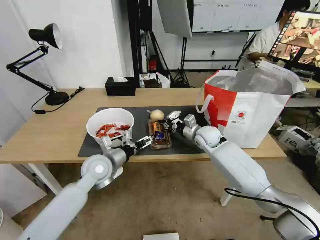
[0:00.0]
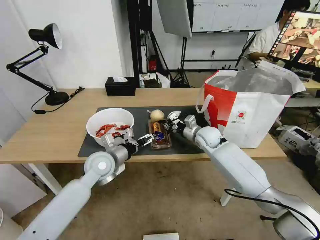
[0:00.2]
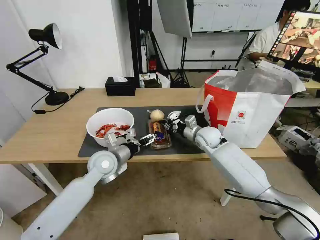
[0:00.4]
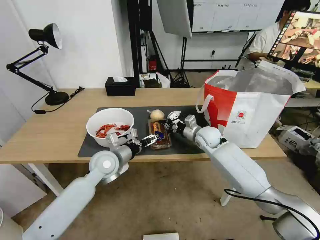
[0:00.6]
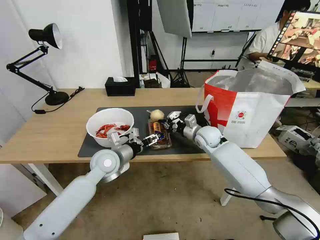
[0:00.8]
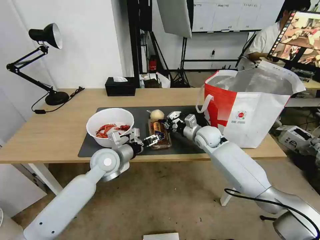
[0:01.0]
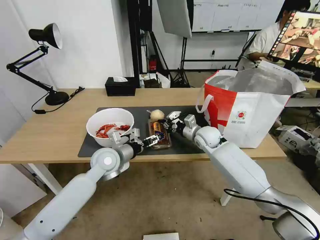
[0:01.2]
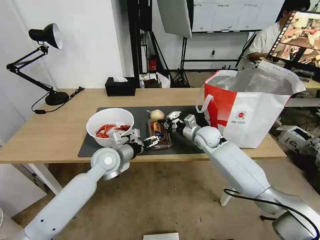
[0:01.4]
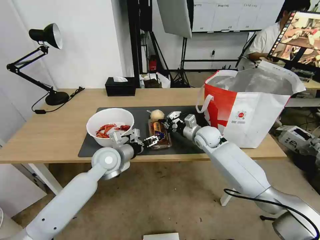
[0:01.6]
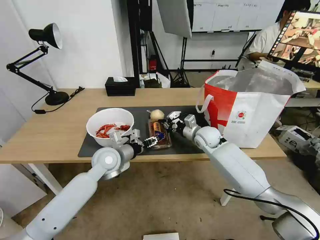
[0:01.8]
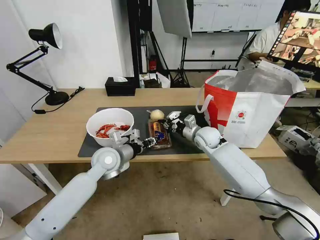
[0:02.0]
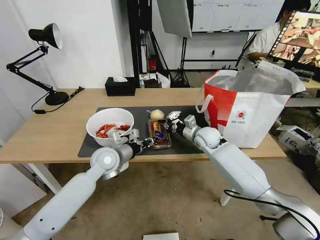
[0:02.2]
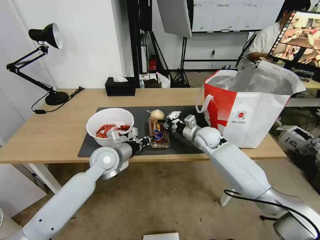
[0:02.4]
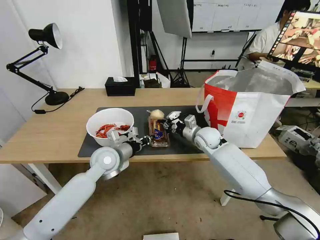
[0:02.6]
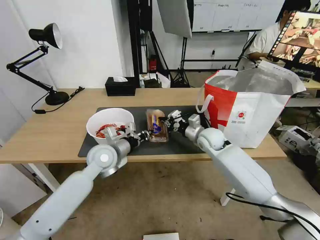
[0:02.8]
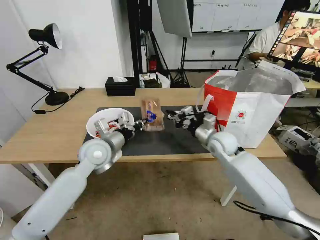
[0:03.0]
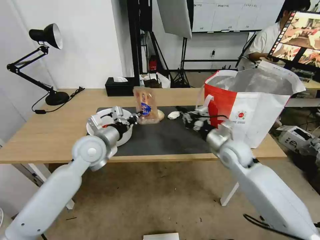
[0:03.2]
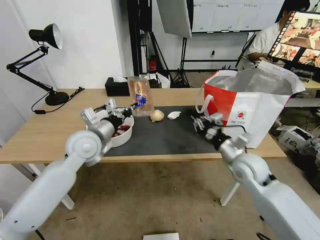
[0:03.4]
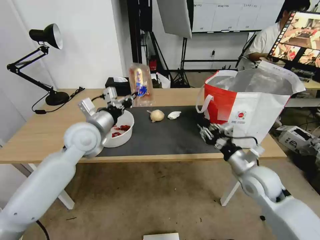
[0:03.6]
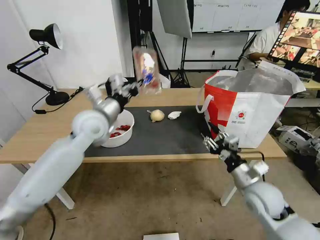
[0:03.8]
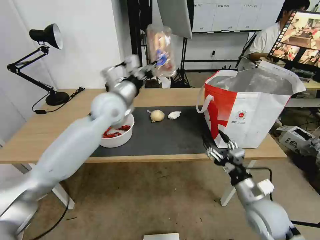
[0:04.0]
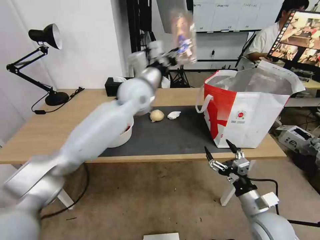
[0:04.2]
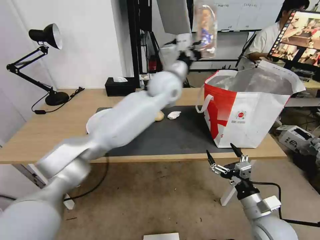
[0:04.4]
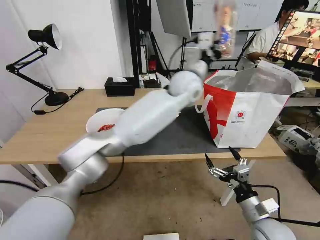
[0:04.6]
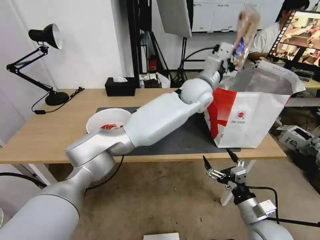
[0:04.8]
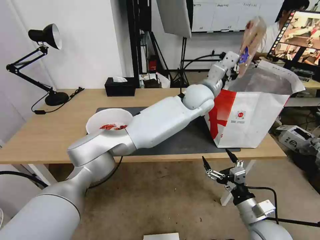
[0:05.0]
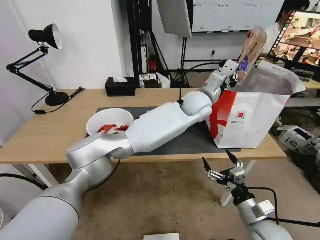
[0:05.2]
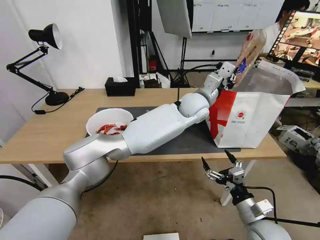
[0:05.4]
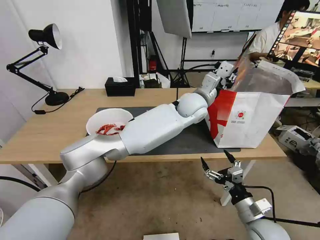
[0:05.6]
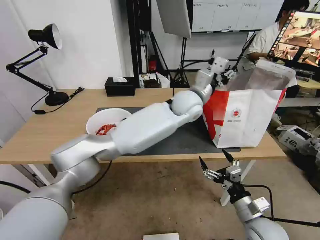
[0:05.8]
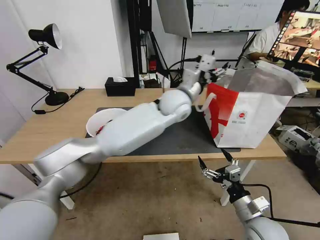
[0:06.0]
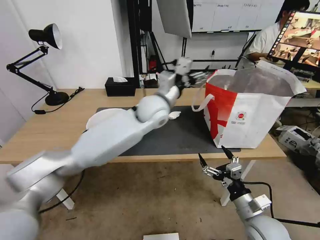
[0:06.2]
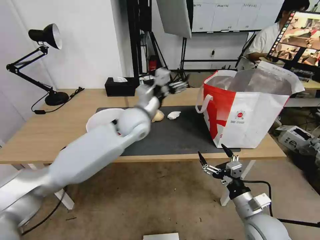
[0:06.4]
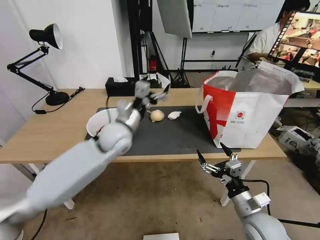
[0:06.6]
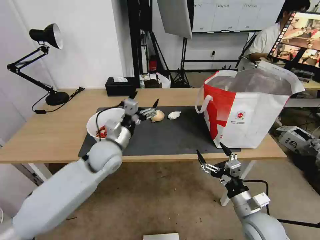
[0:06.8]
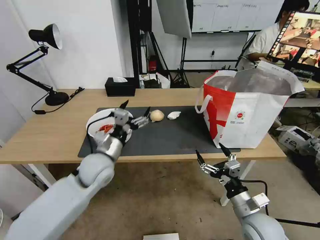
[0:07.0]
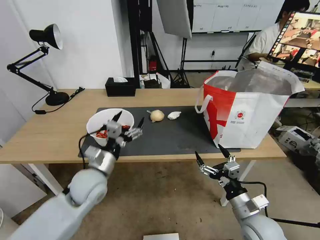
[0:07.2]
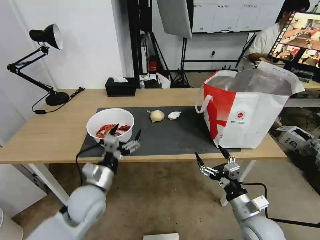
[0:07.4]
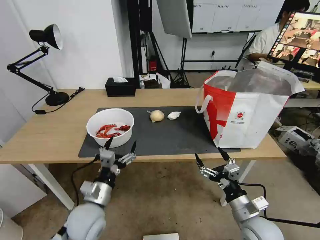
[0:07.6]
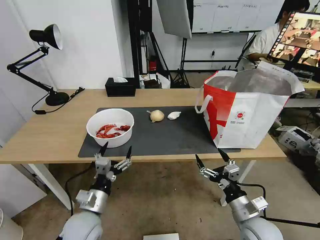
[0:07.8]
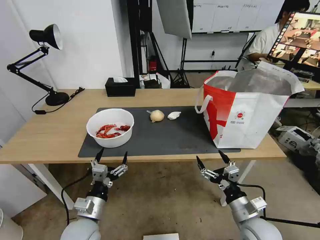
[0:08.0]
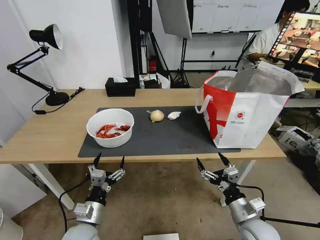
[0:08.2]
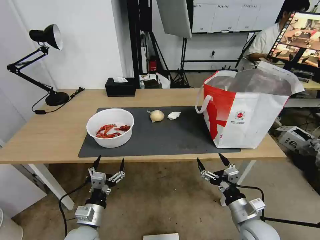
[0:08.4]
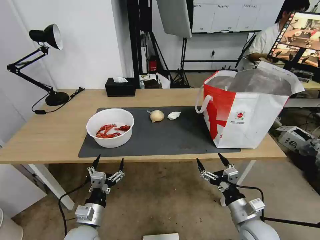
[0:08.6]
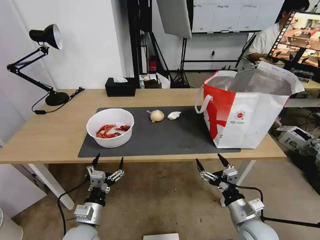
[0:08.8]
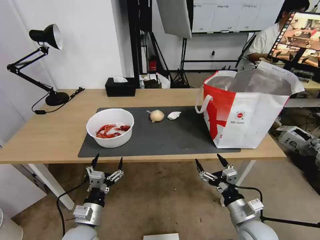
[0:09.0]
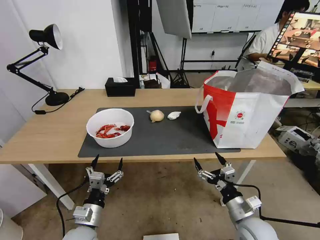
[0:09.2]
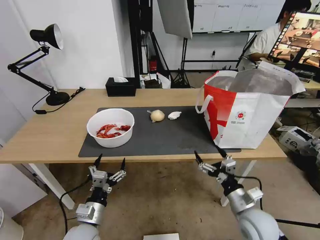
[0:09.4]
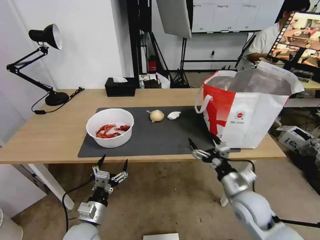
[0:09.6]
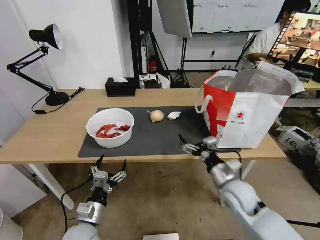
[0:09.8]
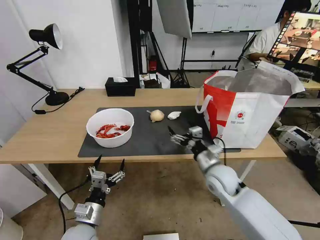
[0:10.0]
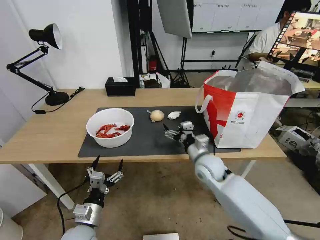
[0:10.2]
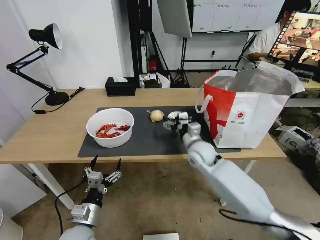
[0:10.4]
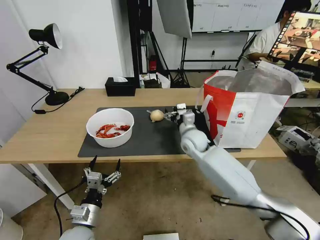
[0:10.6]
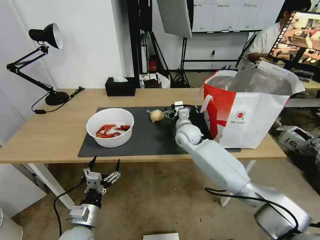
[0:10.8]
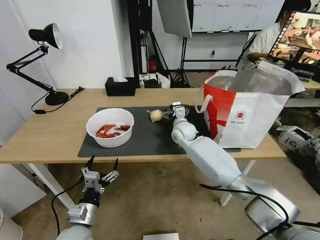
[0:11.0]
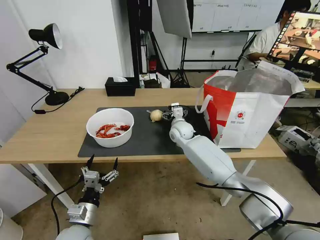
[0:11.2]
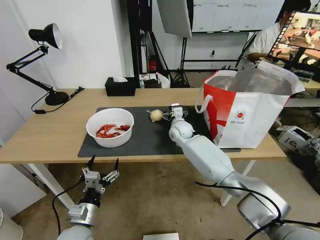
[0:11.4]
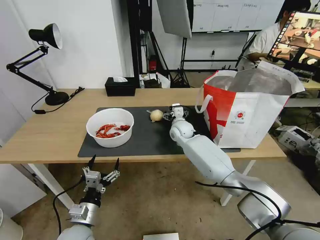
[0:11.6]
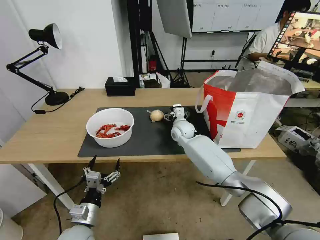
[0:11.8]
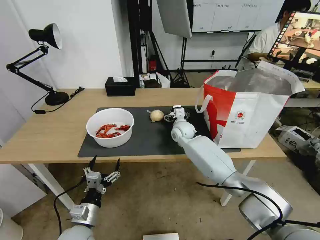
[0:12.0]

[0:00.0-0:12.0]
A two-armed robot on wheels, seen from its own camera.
Task of the whole recording: Pick up the trash from the table and place it into the takeout bag.
0:00.0 to 0:01.6: The grippers stay close to where they were, moving slightly.
0:01.6 to 0:03.0: The left gripper shifts by about 5 cm, and closes up, while the right gripper ends up roughly 5 cm from where it was.
0:03.0 to 0:04.4: The right gripper travels backward by approximately 25 cm, and opens. Meanwhile the left gripper moves to the right, upward and forward, some 30 cm.
0:04.4 to 0:06.0: The left gripper reaches some 10 cm to the right, then returns, and opens.
0:06.0 to 0:07.6: The left gripper goes about 40 cm backward, to the left and downward.
0:07.6 to 0:09.0: The left gripper heads downward, covering some 5 cm.
0:09.0 to 0:10.4: The right gripper is displaced forward and to the left by approximately 25 cm.
0:10.4 to 0:12.0: The right gripper is displaced forward by approximately 15 cm.

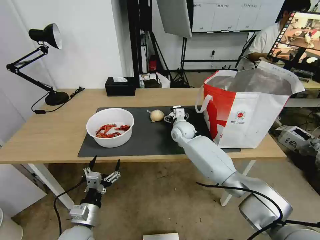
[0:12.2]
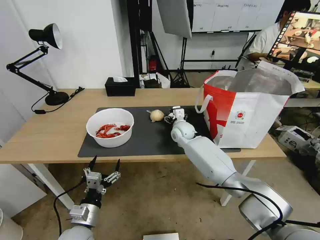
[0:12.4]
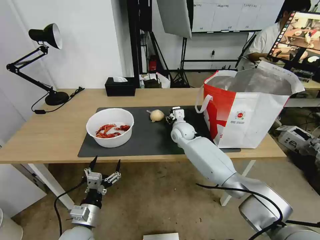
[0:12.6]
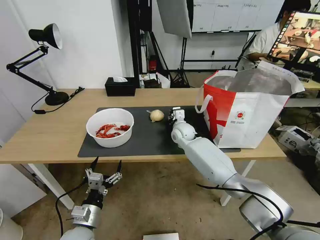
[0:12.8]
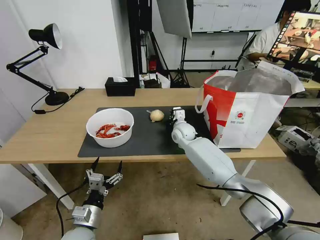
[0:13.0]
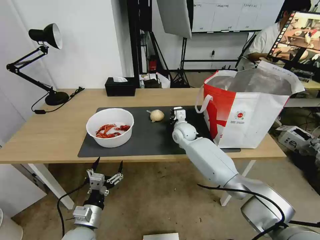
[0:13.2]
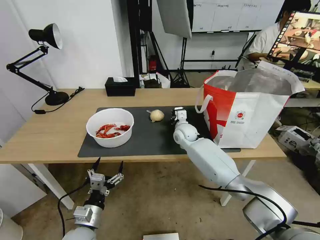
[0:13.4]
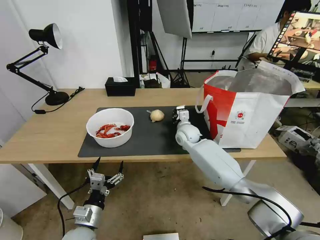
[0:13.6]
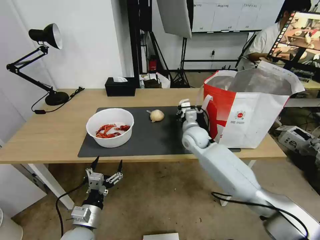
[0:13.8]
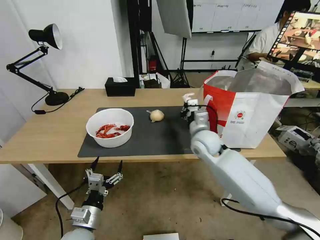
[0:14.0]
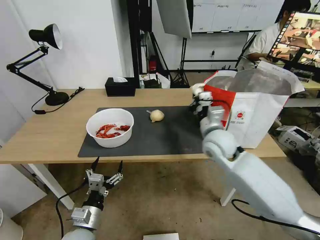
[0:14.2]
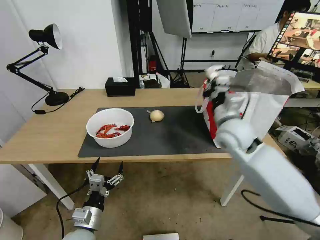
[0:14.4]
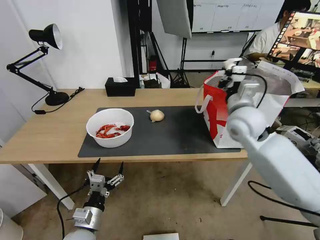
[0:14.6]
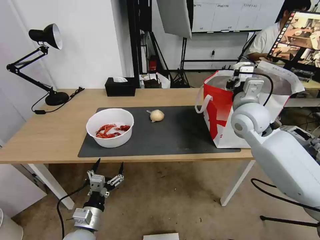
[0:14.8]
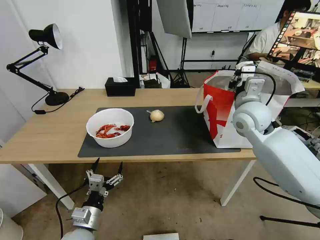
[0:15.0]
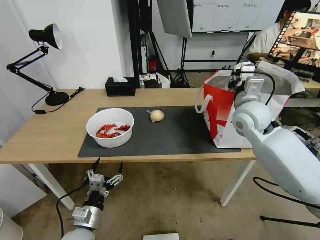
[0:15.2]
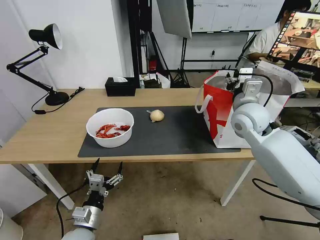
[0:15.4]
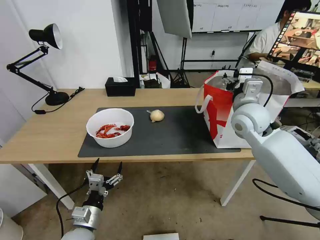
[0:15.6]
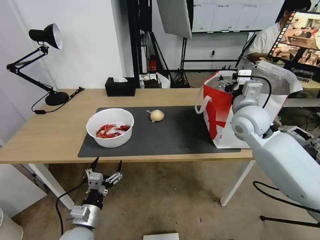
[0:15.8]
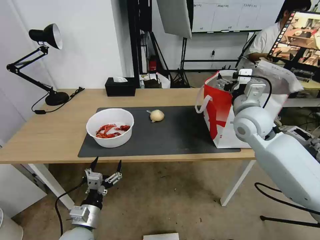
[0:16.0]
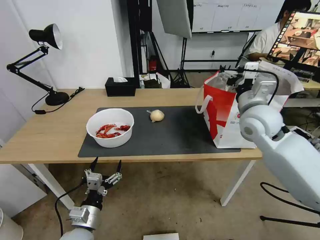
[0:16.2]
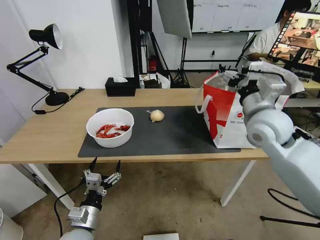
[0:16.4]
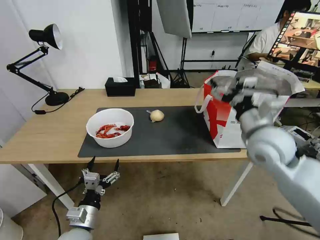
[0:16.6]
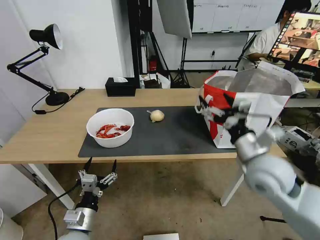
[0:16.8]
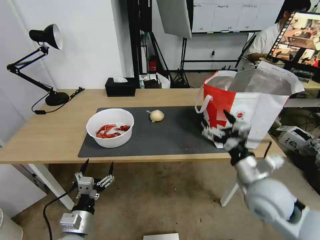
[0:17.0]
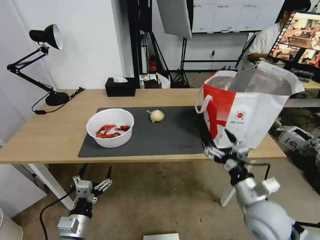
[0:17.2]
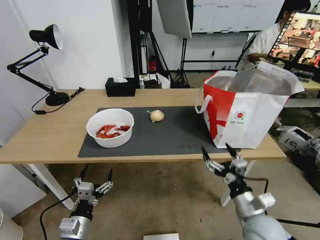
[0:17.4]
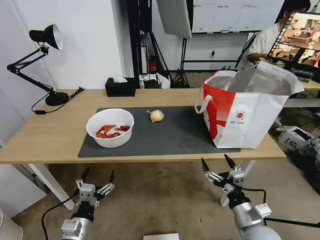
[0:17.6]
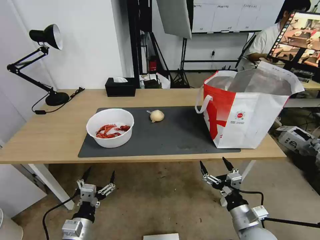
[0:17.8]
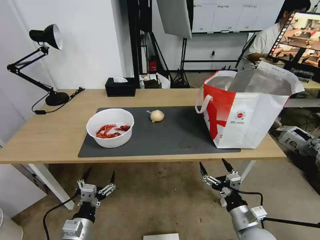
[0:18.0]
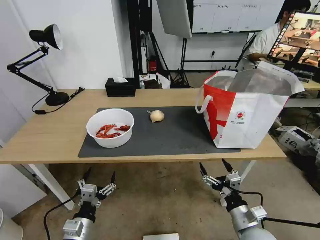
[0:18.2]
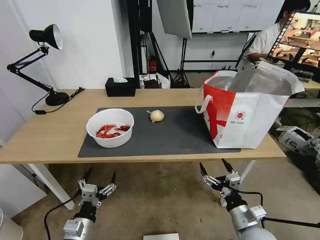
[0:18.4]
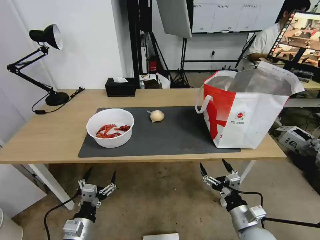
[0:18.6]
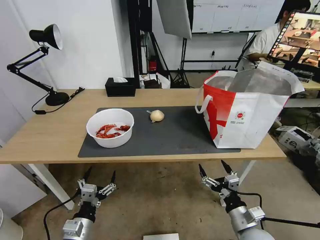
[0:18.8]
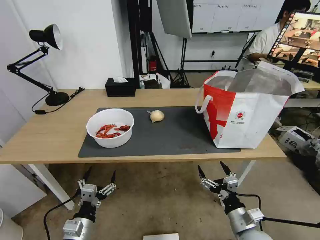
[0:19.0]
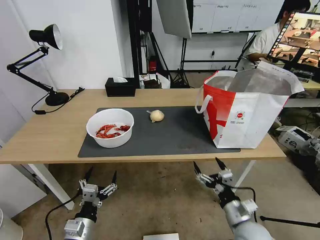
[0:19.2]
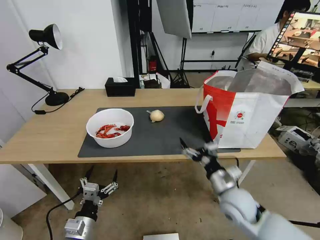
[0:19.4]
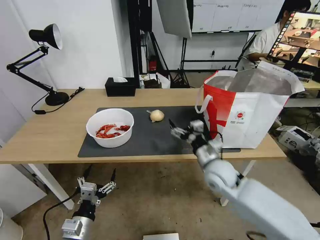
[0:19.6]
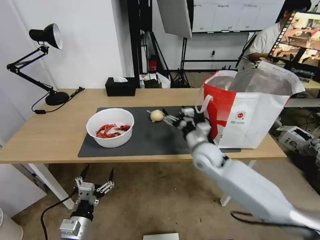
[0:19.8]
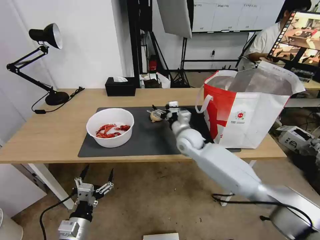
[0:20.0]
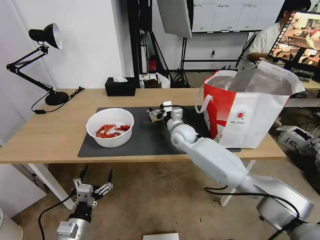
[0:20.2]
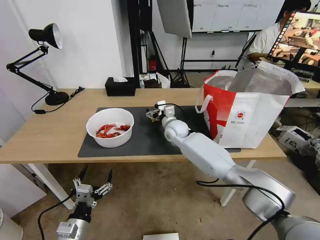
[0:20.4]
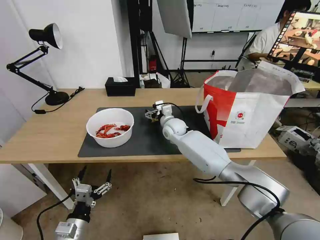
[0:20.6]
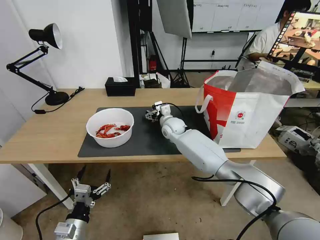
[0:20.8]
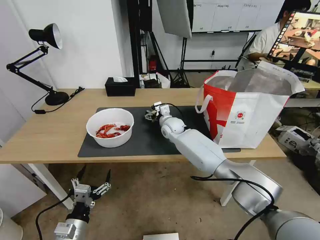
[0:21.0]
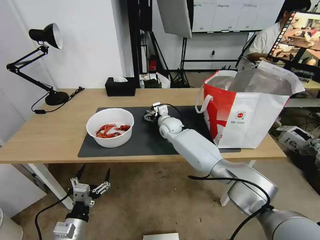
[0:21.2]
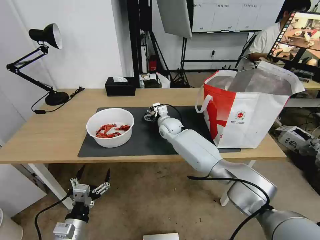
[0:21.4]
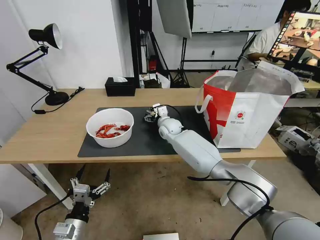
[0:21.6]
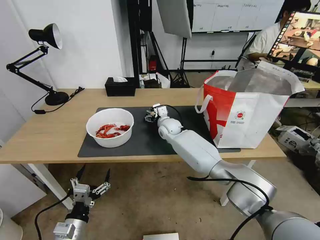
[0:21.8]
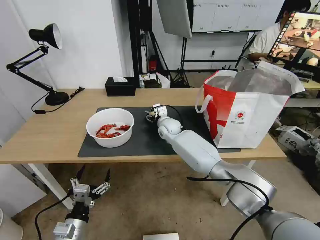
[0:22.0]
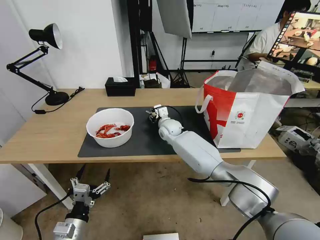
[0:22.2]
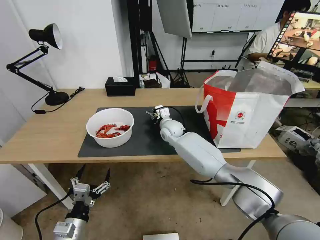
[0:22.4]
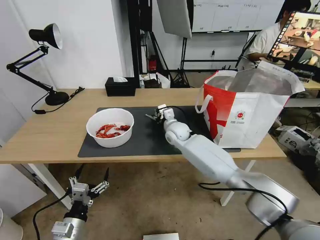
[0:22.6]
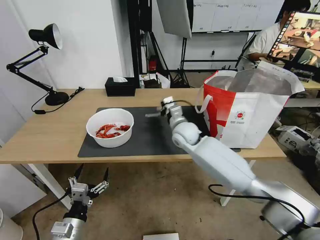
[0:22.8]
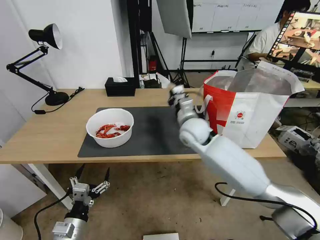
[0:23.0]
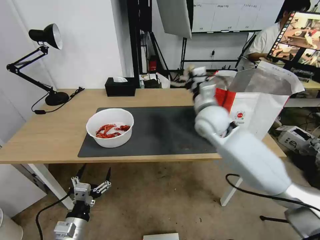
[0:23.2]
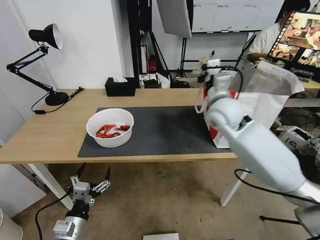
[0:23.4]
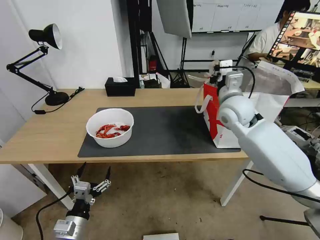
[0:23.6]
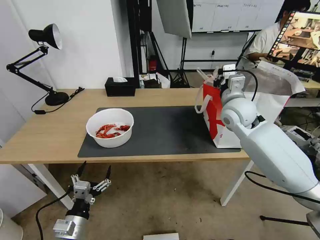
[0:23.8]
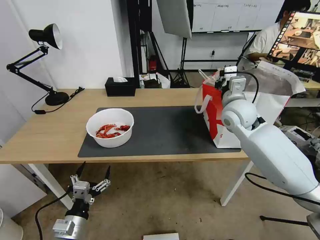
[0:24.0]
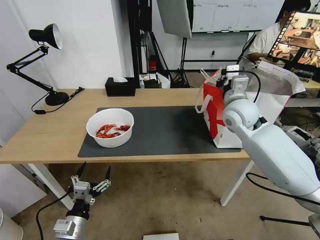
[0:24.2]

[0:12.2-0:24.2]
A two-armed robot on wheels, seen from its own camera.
Task of the whole recording: Pick up the trash from the table and place it into the takeout bag.
0:12.2 to 0:13.8: The right gripper moves backward, approximately 5 cm, and closes.
0:13.8 to 0:15.2: The right gripper moves upward and to the right, roughly 20 cm.
0:15.2 to 0:16.6: The right gripper travels backward by about 10 cm, and opens.
0:16.6 to 0:18.2: The right gripper moves downward and backward, approximately 30 cm.
0:18.2 to 0:19.8: The right gripper travels forward, to the left and upward by about 30 cm.
0:19.8 to 0:21.2: The right gripper shifts about 20 cm forward and to the left.
0:21.2 to 0:22.6: The right gripper closes.
0:22.6 to 0:24.2: The right gripper travels to the right, upward and backward by some 25 cm.
